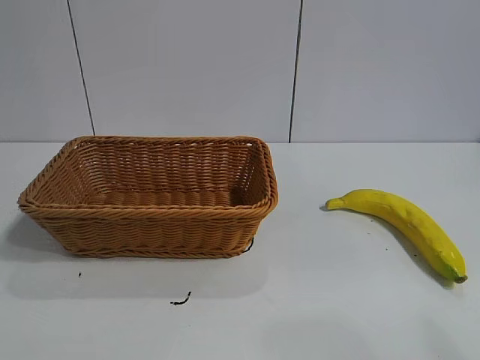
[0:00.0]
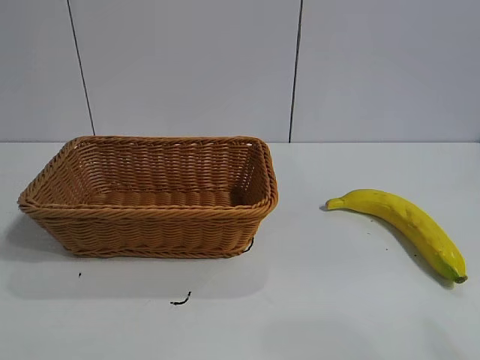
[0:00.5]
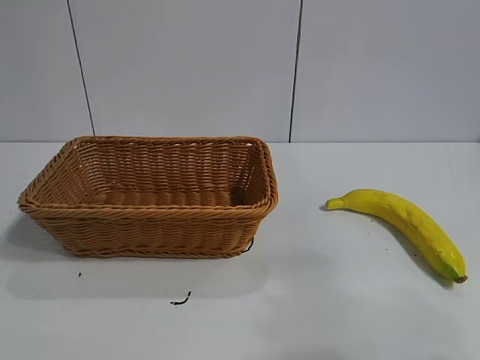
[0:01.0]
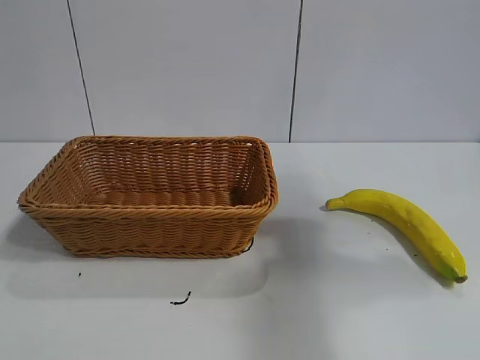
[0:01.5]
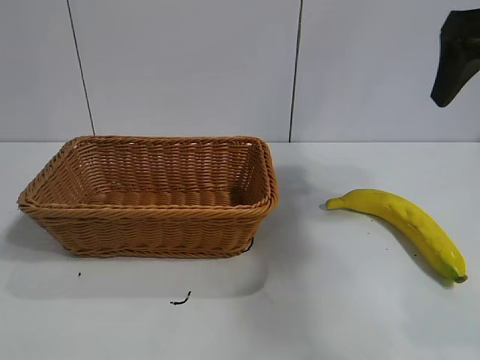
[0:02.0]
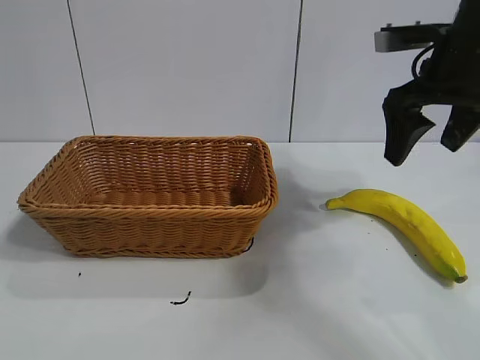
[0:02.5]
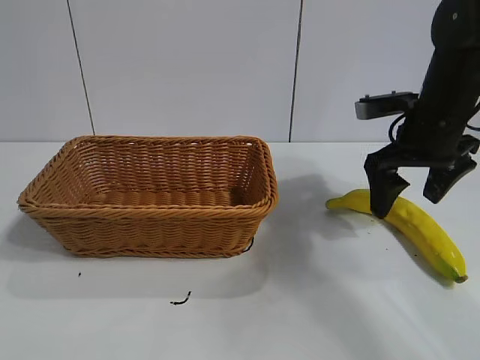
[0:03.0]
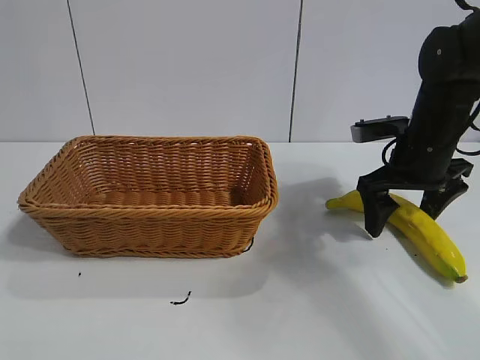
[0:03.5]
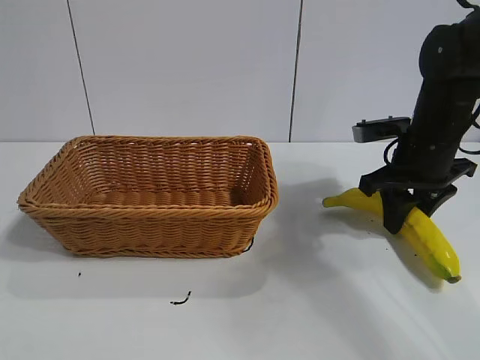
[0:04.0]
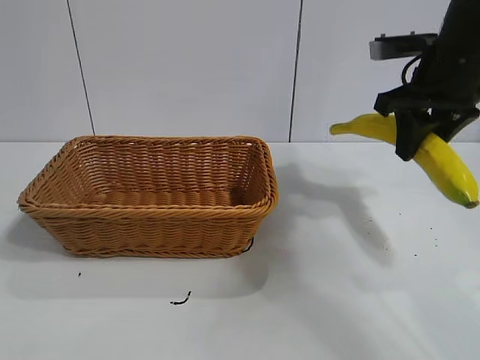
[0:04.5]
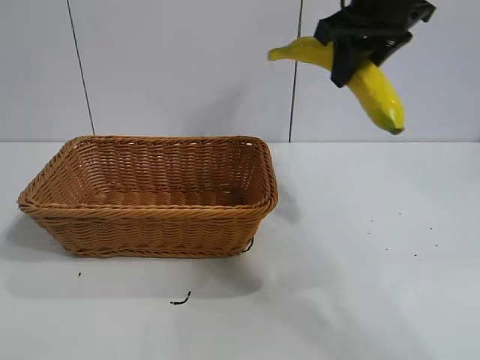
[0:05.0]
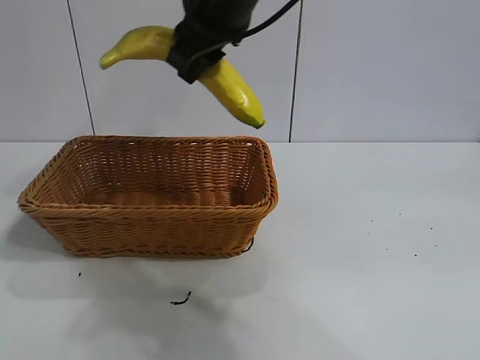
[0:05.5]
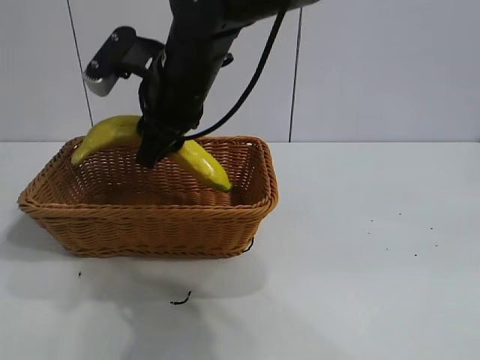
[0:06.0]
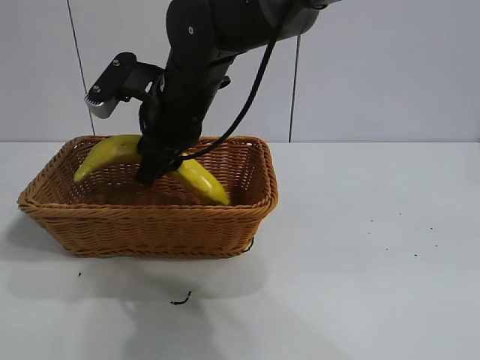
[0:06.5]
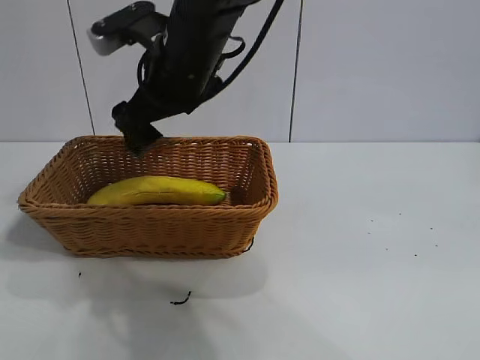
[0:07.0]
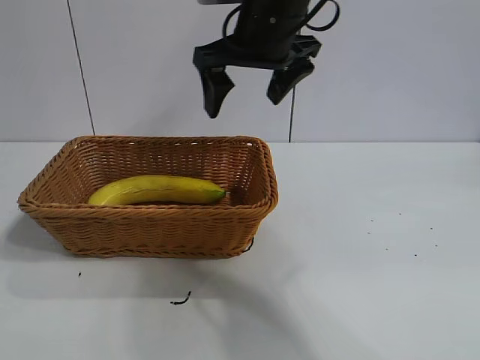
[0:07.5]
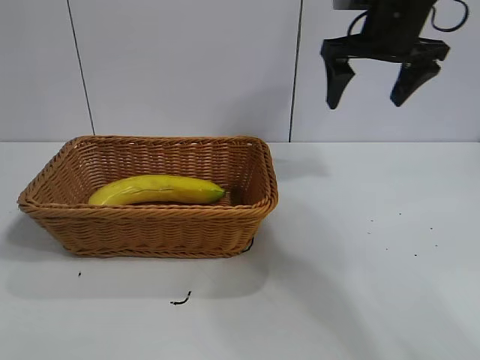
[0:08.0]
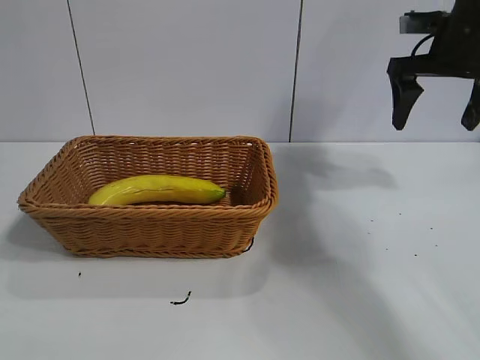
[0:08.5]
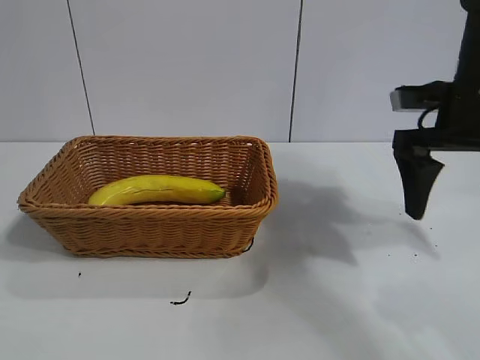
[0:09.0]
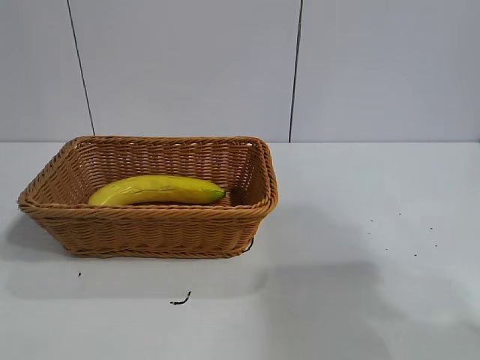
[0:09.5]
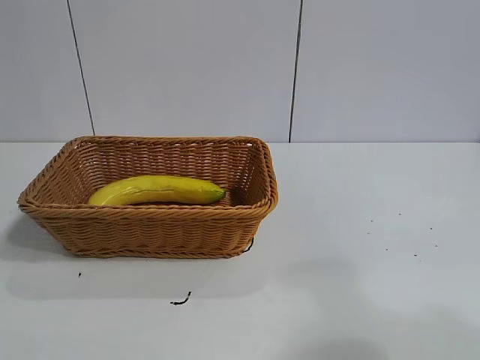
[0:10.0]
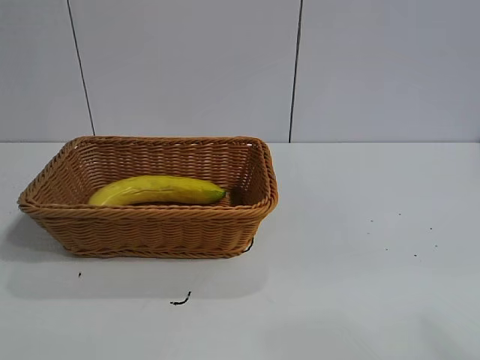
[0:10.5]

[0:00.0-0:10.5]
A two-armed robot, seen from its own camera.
Task of the whole recording: pick up the banana and put it into the basket.
Step, 0:02.0 to 0:04.0: Grasp the banana with right gripper.
Step, 0:04.5 to 0:06.5: Place the banana in the basket with right gripper.
